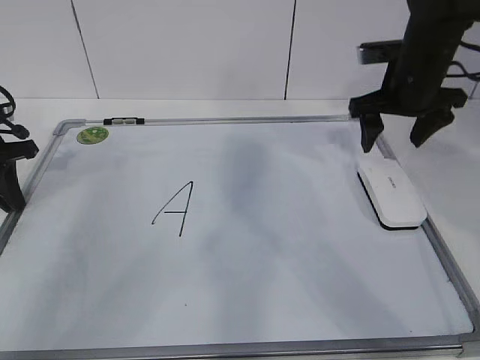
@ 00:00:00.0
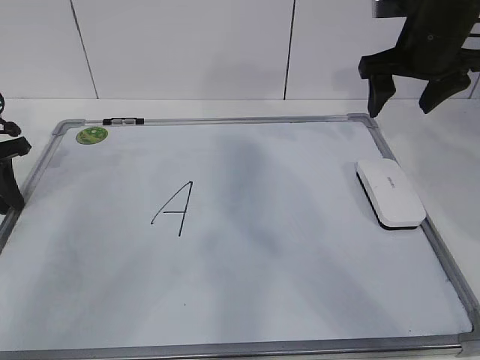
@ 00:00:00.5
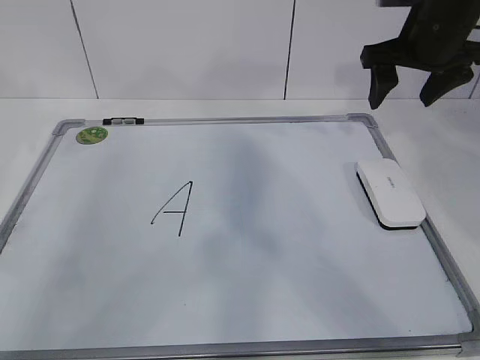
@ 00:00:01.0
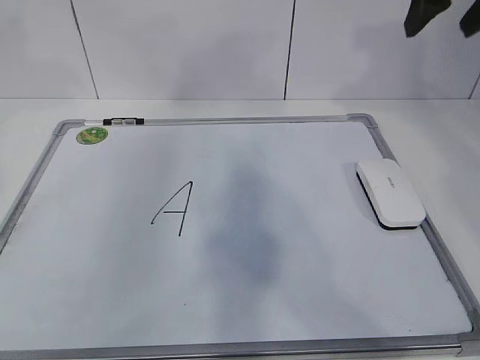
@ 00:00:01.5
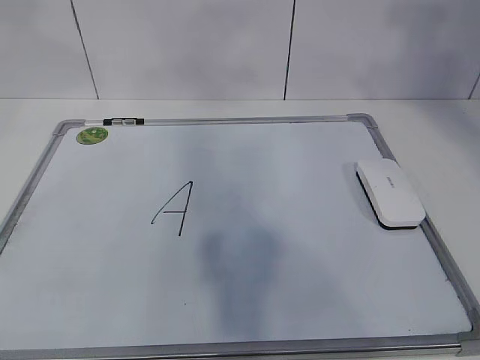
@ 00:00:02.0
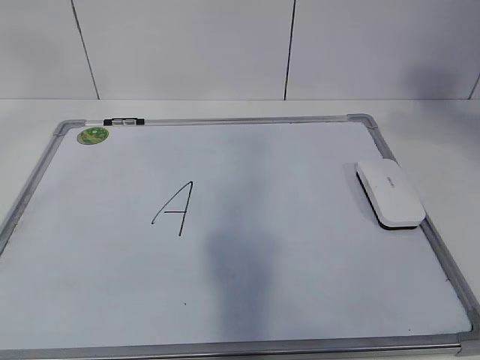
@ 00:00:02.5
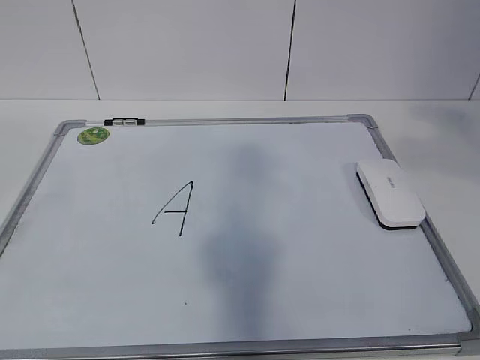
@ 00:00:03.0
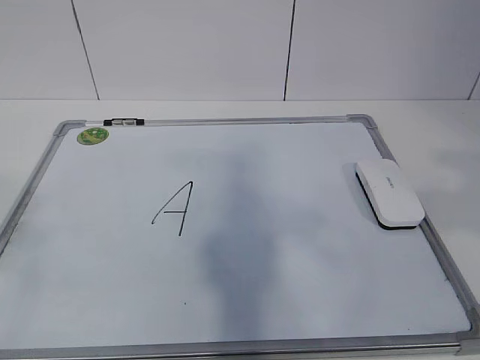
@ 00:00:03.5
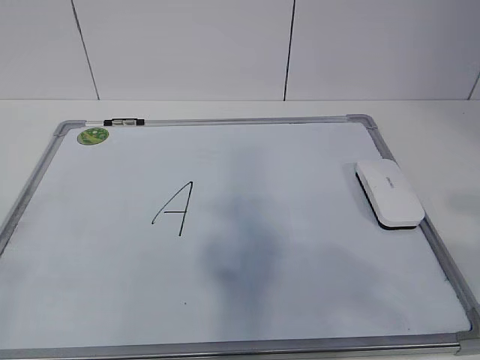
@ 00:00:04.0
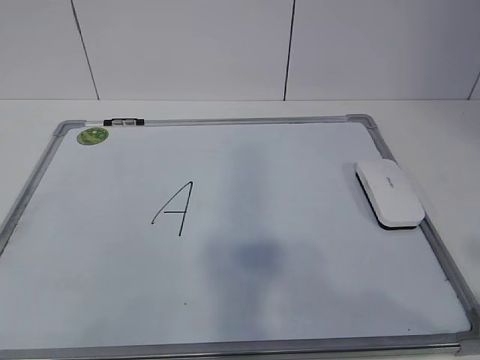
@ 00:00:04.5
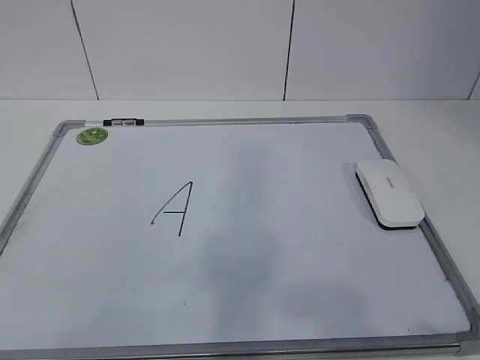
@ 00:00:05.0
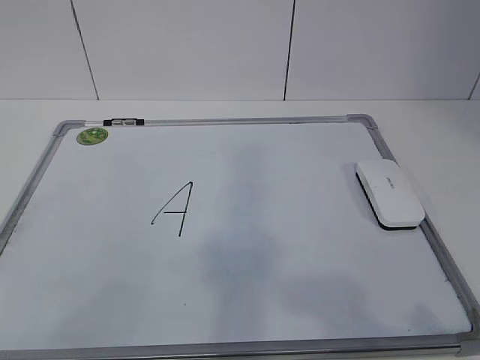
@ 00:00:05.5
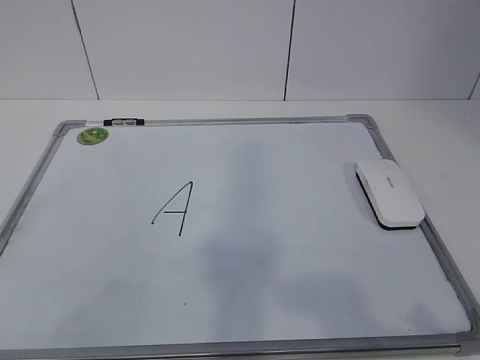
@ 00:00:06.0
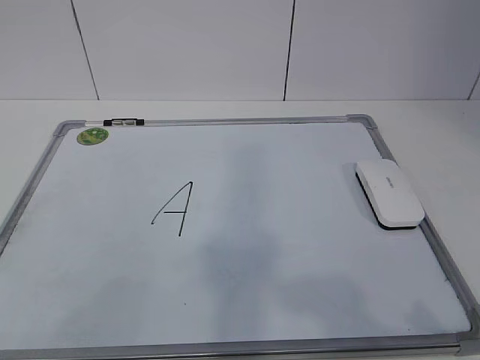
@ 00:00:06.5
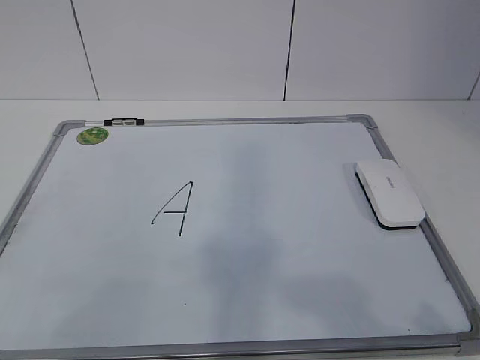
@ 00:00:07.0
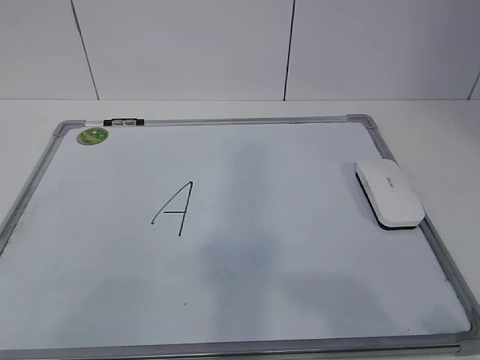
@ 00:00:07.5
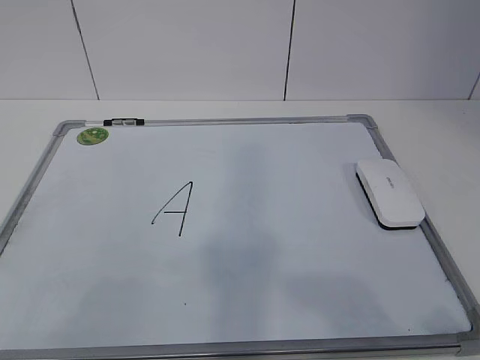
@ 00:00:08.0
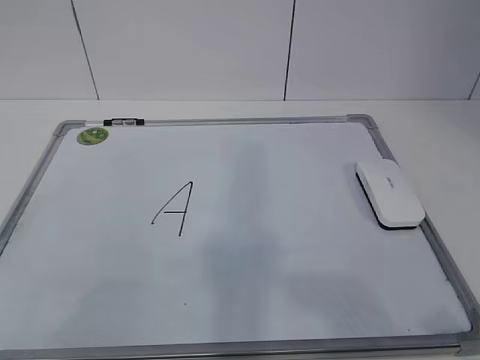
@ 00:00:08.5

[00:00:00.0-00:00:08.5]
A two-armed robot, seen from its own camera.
Task of the whole recording: pick up the eraser on the blackboard and erase the letter "a".
00:00:00.0 to 00:00:02.0: The two grippers go approximately 35 cm upward and backward. The left gripper opens; the right gripper closes.
00:00:02.0 to 00:00:04.0: The right gripper goes roughly 25 cm backward and downward, while the left gripper goes roughly 30 cm backward.
00:00:04.0 to 00:00:06.5: Both grippers move downward, about 10 cm.
